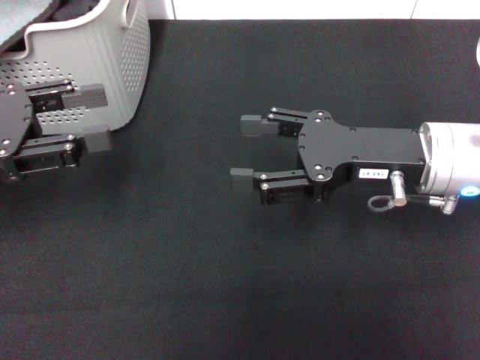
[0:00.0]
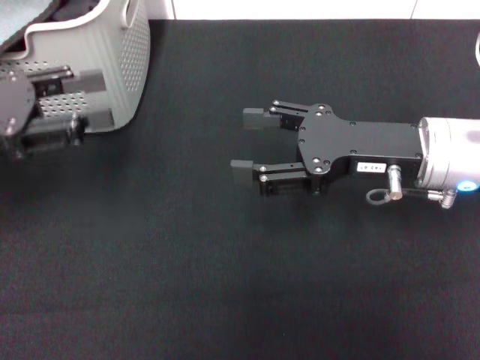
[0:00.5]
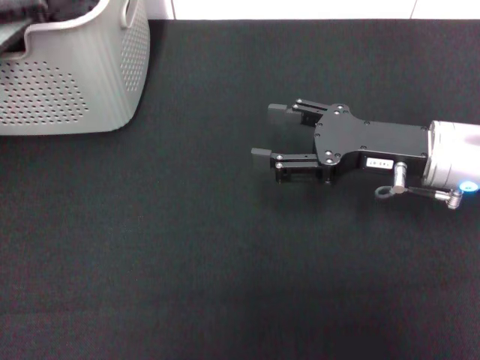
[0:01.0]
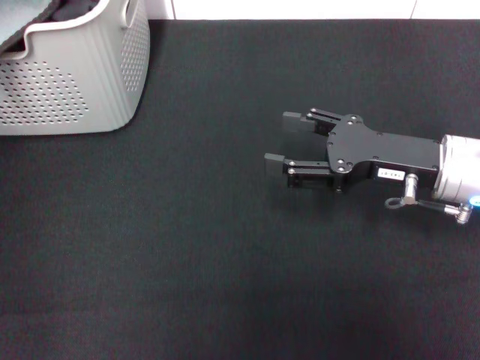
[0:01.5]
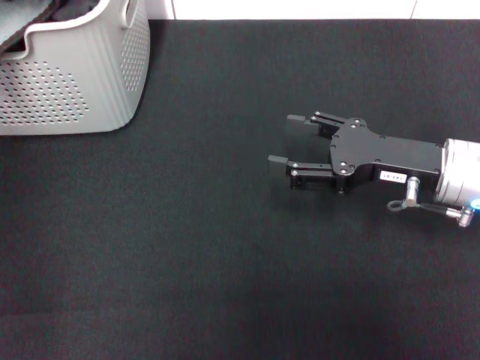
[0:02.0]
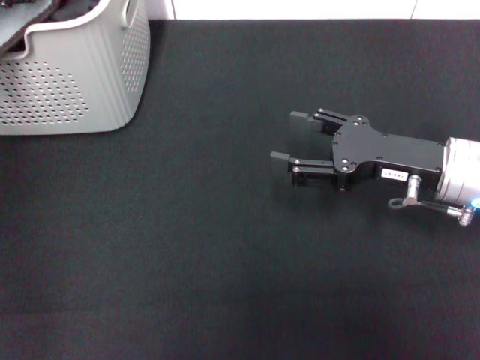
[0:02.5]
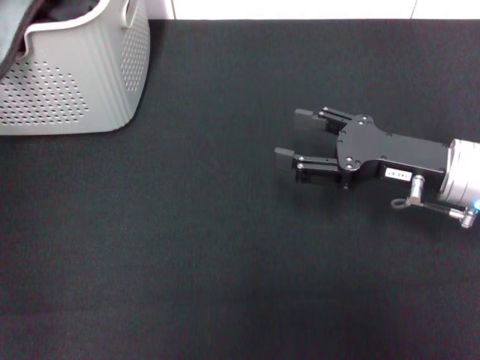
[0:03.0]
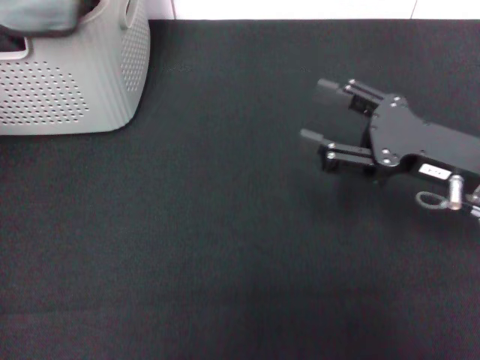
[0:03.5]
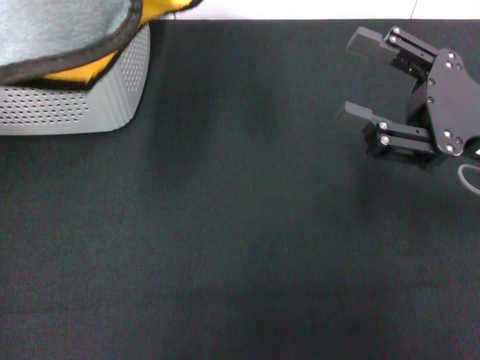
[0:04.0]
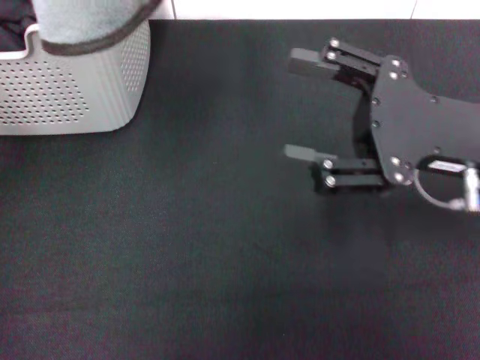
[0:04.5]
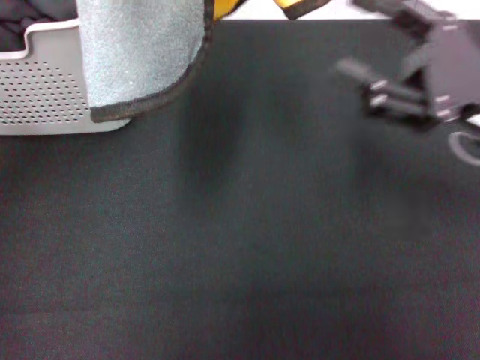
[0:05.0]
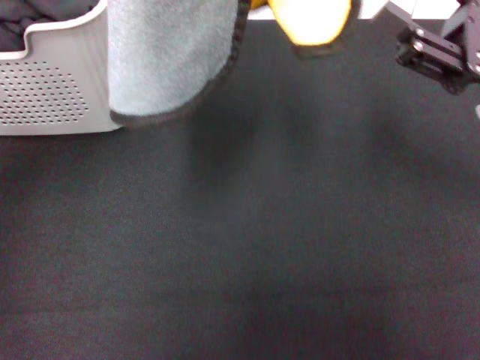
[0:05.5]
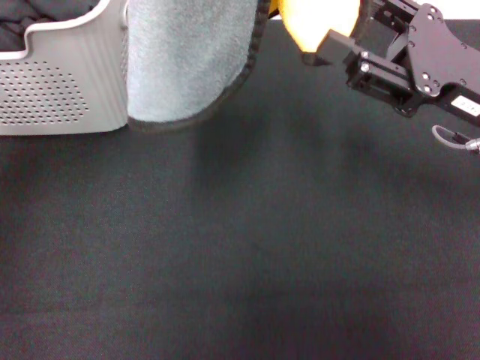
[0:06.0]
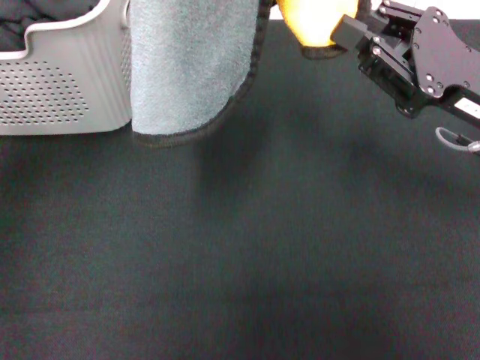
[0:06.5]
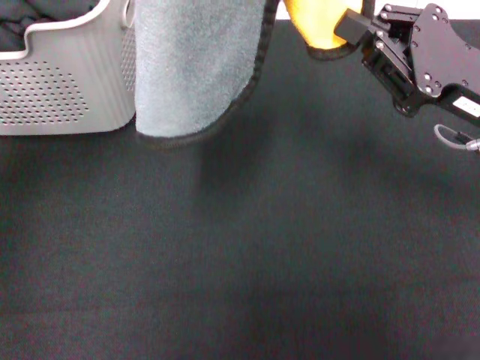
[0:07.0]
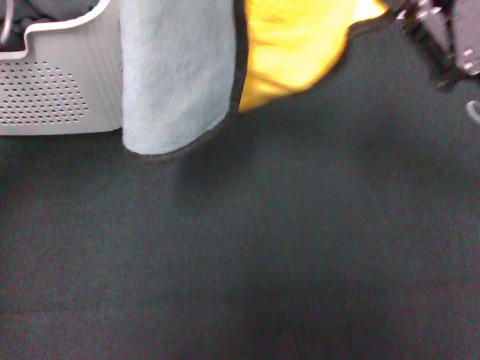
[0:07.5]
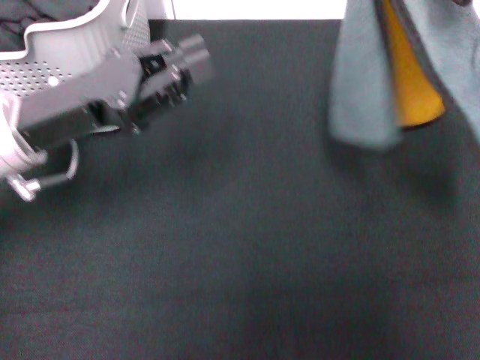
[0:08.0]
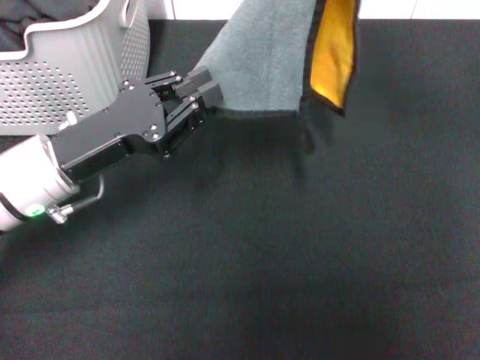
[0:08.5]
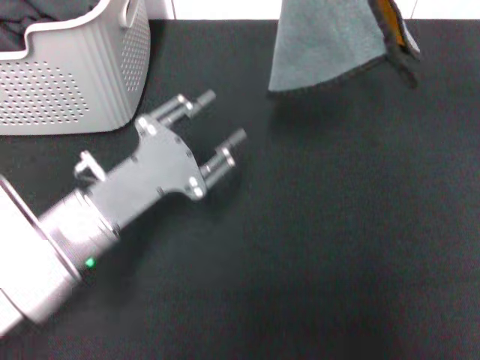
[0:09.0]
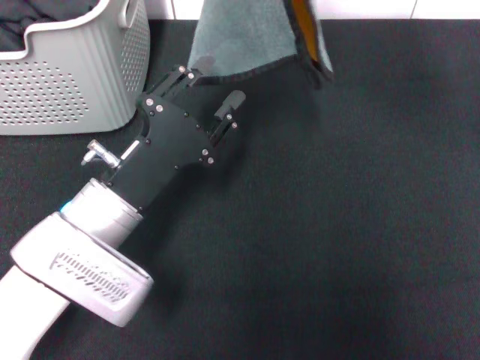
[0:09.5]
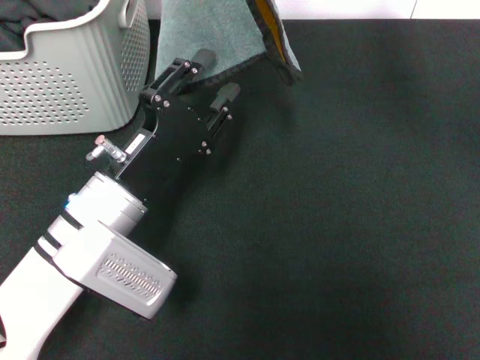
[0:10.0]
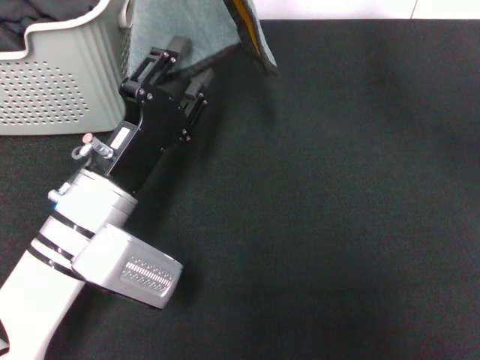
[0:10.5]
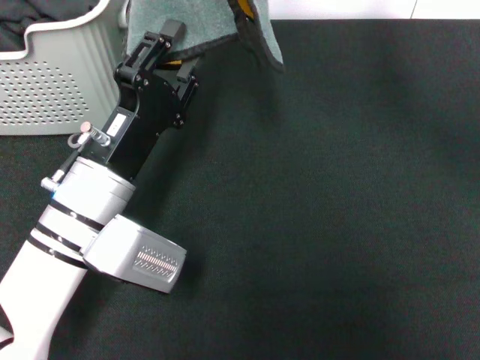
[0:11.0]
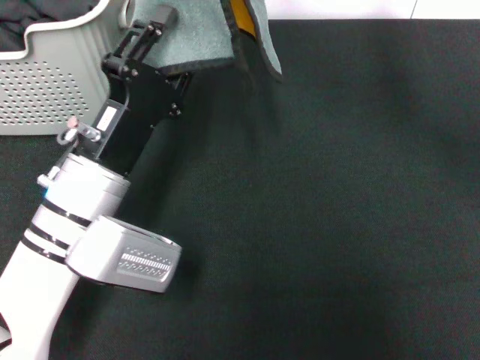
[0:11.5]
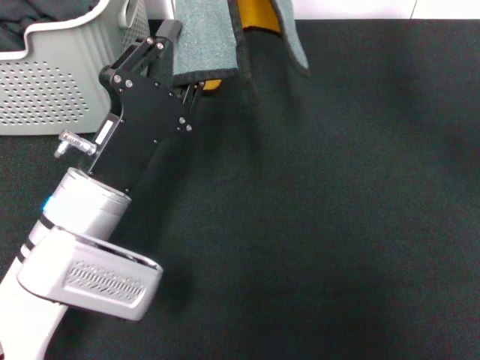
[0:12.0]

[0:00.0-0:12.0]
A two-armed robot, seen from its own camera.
Task of the whole recording: pick up the towel from the storage box and lay it flat on the black tablecloth.
Step, 0:00.0 to 0:02.5: Pick up a towel with the left gripper.
Step, 0:03.0 to 0:07.0: Spread the towel flat with the left gripper.
0:00.0 to 0:02.0: The left gripper shifts roughly 15 cm forward and upward.
0:02.0 to 0:04.0: The left gripper heads upward and backward, covering roughly 15 cm, and closes its fingers, while the right gripper heads upward, covering roughly 5 cm.
0:04.0 to 0:06.0: The left gripper shifts about 5 cm to the right.
0:06.0 to 0:08.0: The right gripper goes some 5 cm upward, and closes, while the left gripper moves downward, approximately 20 cm.
0:08.0 to 0:10.0: The left gripper shifts about 10 cm downward and to the right, and opens up. The right gripper shifts roughly 15 cm to the left, upward and forward.
0:10.0 to 0:12.0: The grippers move only a little.

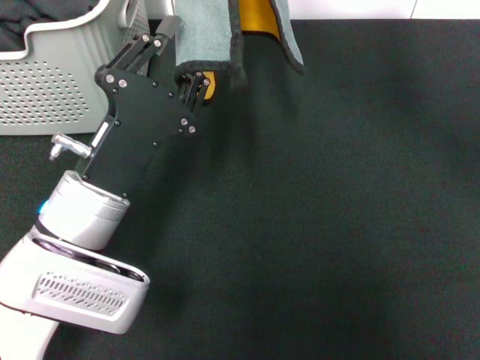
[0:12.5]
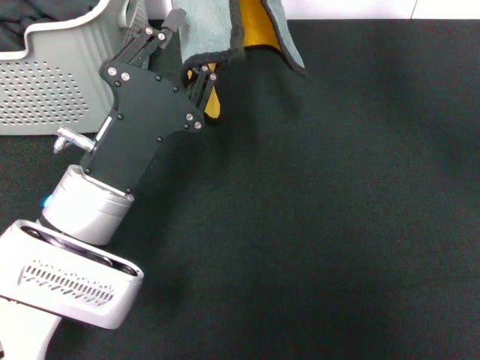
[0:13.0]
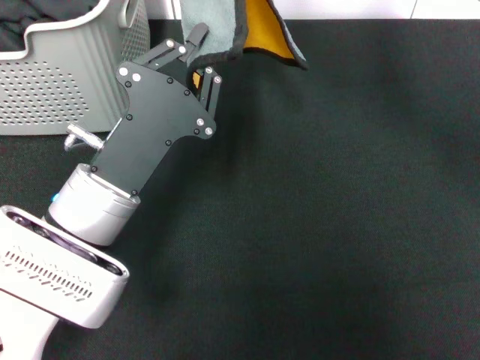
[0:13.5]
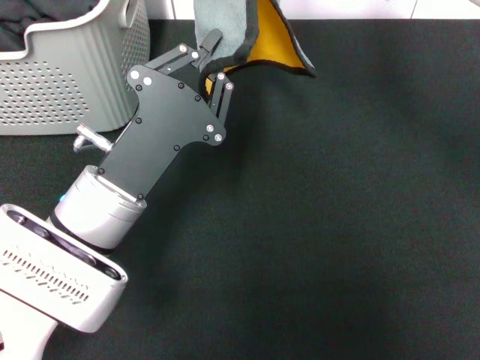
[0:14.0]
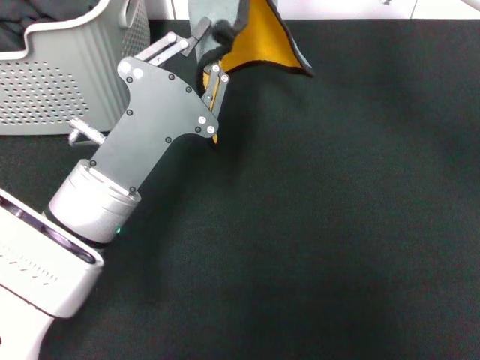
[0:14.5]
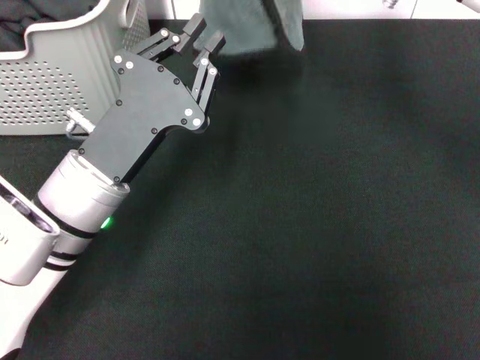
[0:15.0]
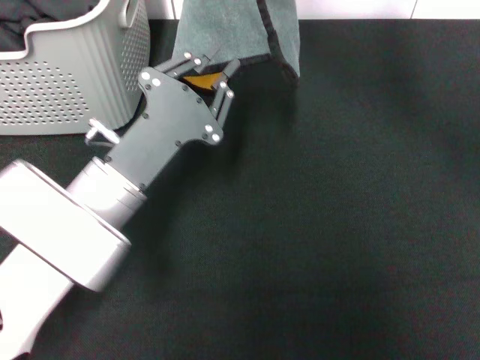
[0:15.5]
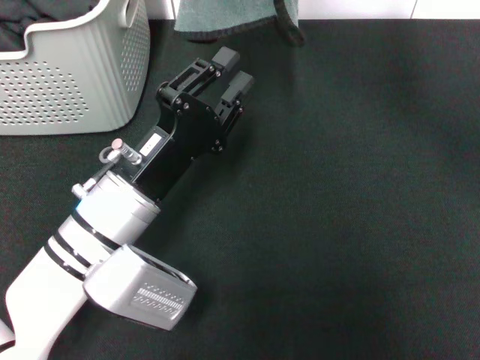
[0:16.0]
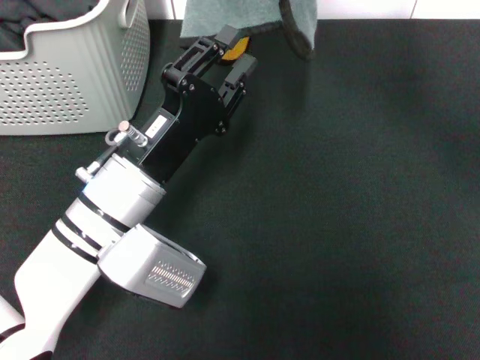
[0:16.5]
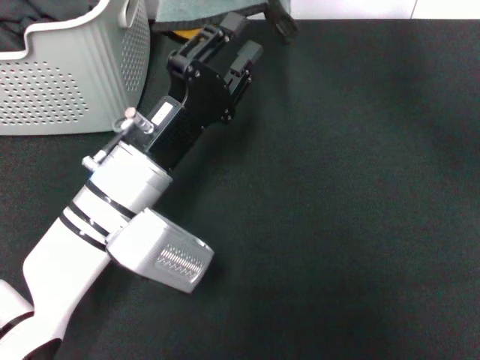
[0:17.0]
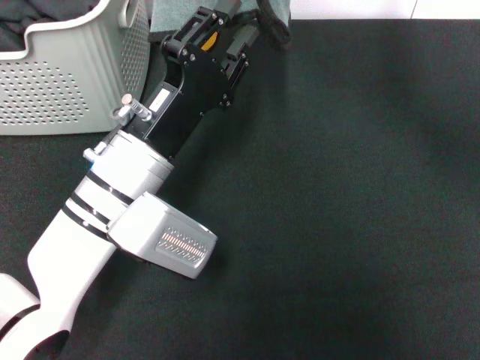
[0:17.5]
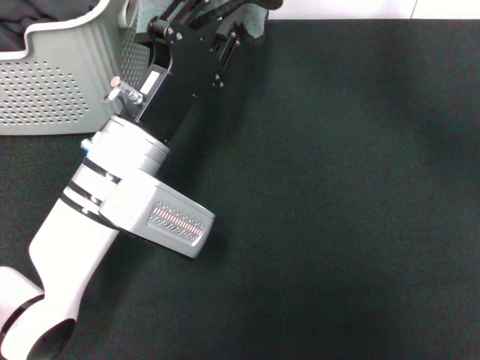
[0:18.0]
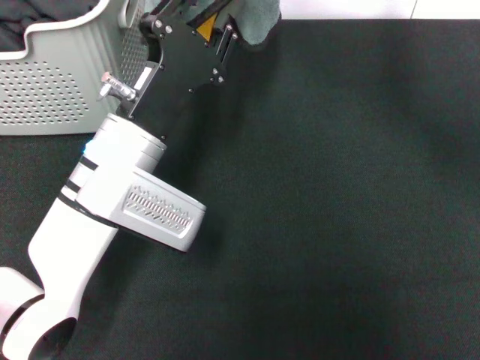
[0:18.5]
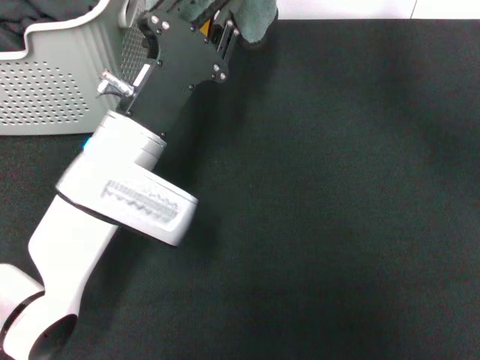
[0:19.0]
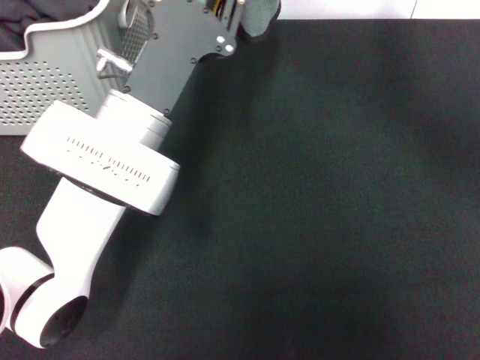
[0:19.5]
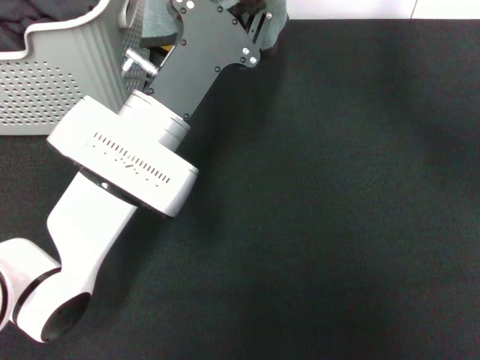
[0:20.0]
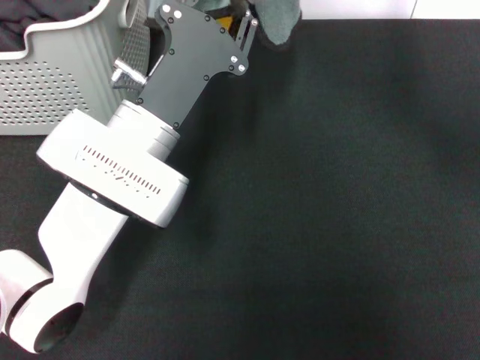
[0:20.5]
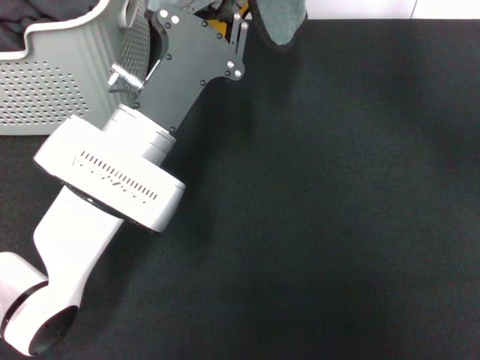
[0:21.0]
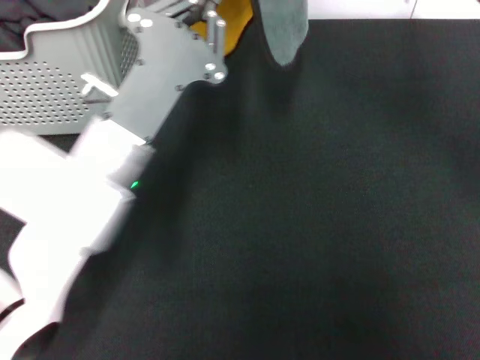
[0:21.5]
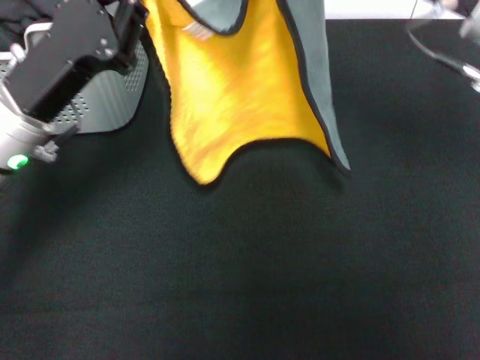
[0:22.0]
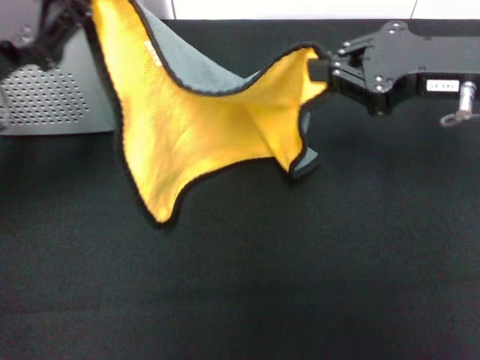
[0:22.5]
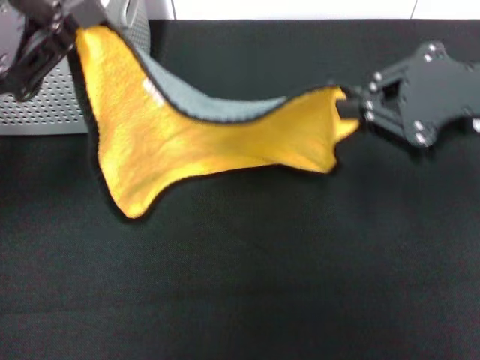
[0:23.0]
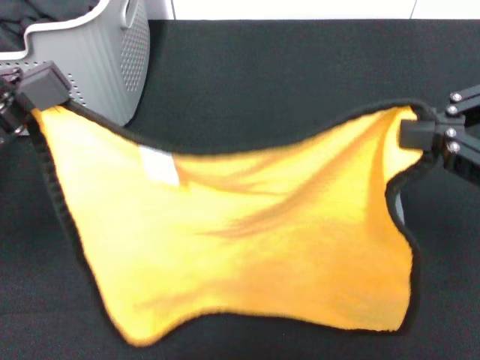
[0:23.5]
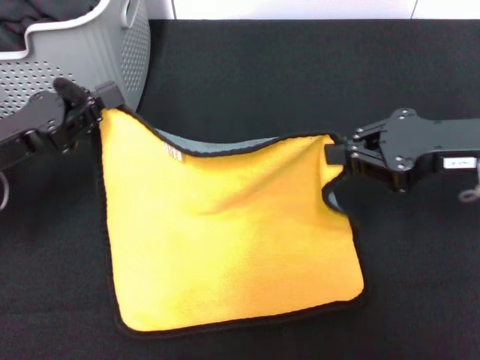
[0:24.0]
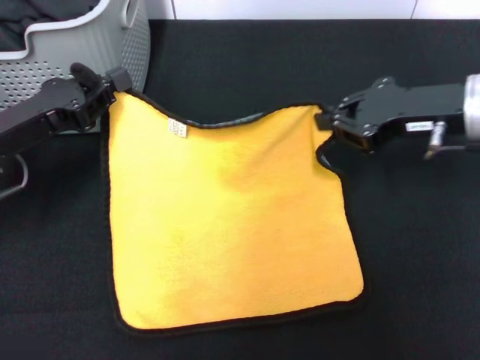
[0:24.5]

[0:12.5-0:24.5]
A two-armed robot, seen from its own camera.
Task of the whole recording: pick up the towel from the storage box and lay it flat on the black tablecloth.
0:14.5 to 0:16.5: The left gripper opens up.
0:16.5 to 0:18.5: The grippers move only a little.
0:20.5 to 0:22.5: The right gripper heads to the right, backward and downward, covering roughly 15 cm. Meanwhile the left gripper goes some 20 cm to the left and upward, and closes.
0:22.5 to 0:24.5: The two grippers go about 5 cm downward. The right gripper travels backward and back again, approximately 10 cm each way.

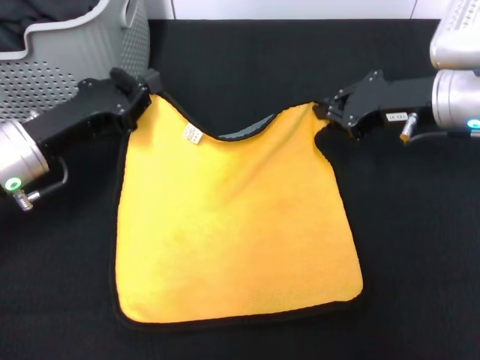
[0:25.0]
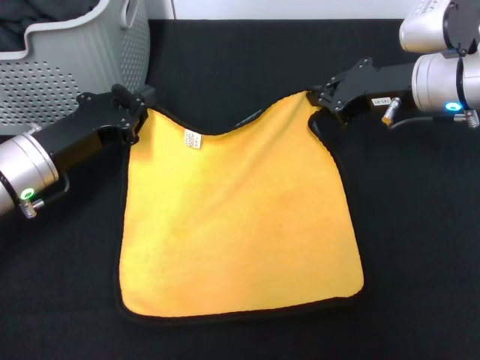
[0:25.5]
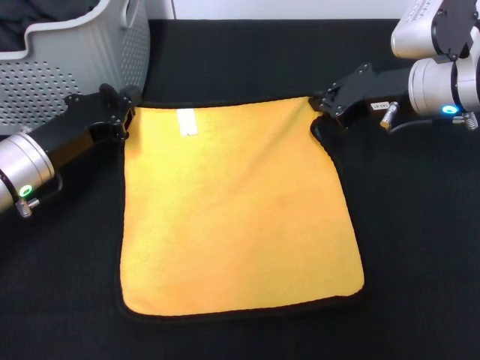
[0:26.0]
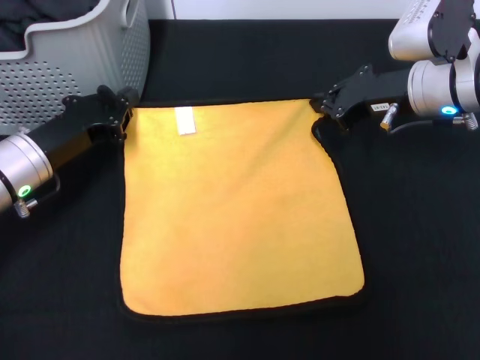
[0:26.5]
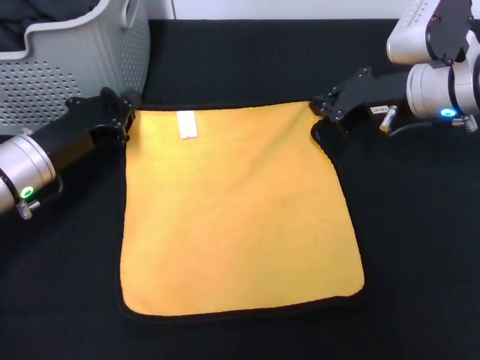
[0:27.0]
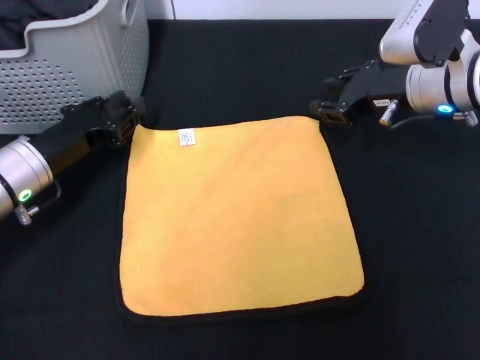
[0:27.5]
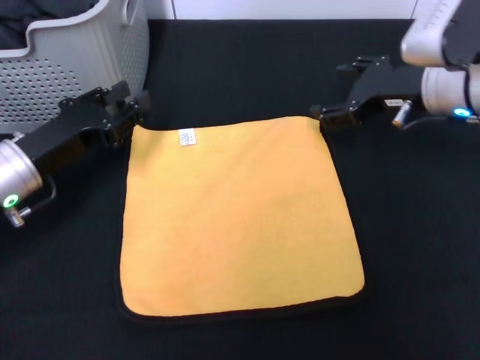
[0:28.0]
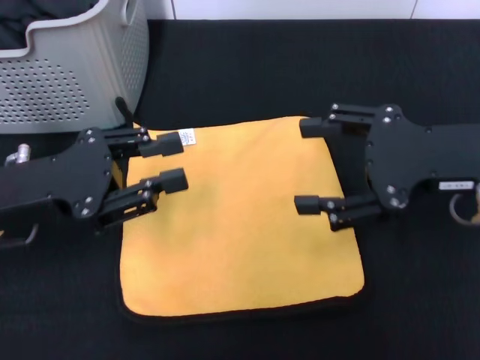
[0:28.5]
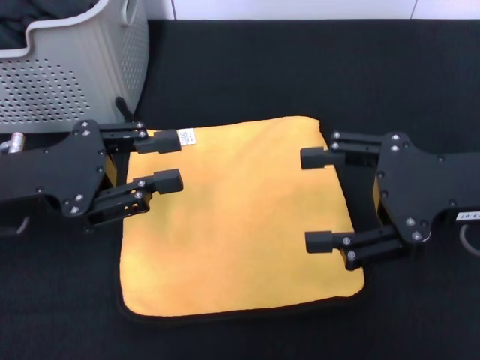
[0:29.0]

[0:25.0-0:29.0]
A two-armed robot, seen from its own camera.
Task of the whole recording: pick up the towel from the storage box and lay it flat on the black tablecloth.
Step, 0:25.0 to 0:27.0: Spread the towel flat with the right gripper.
0:27.0 to 0:29.0: The right gripper travels backward by about 15 cm, and opens. Meanwhile the left gripper is displaced upward and backward by some 10 cm, and opens up.
